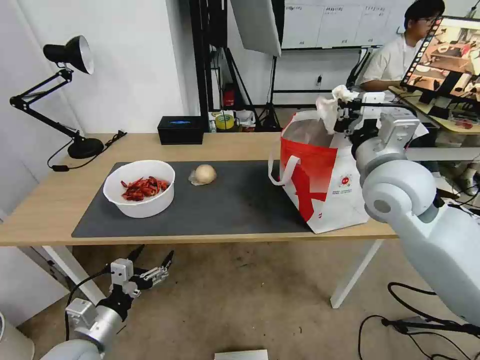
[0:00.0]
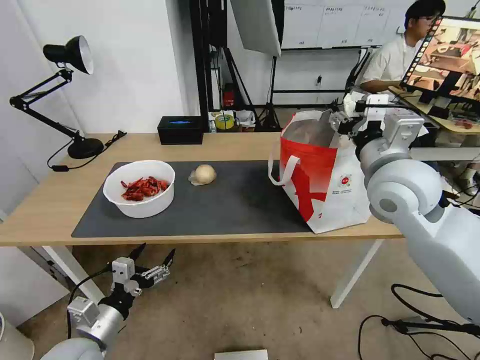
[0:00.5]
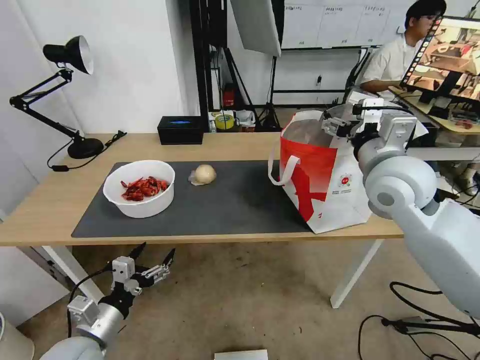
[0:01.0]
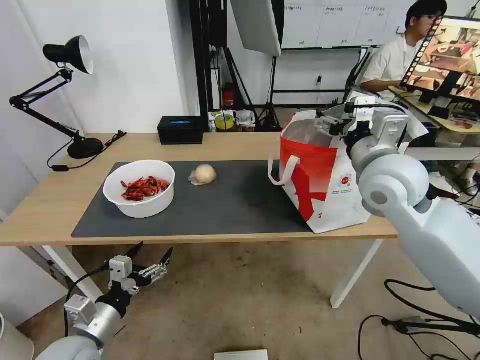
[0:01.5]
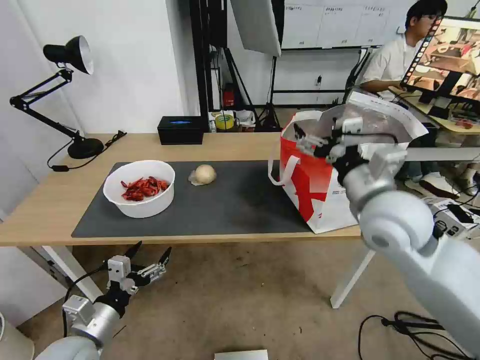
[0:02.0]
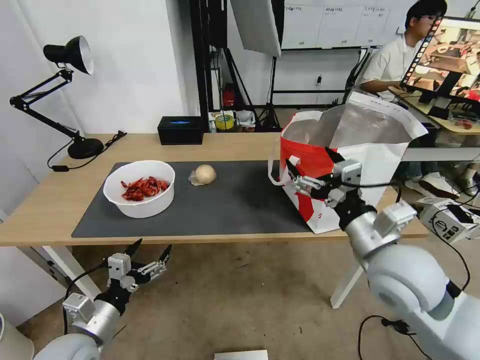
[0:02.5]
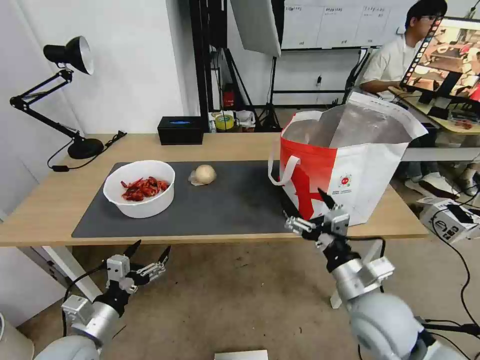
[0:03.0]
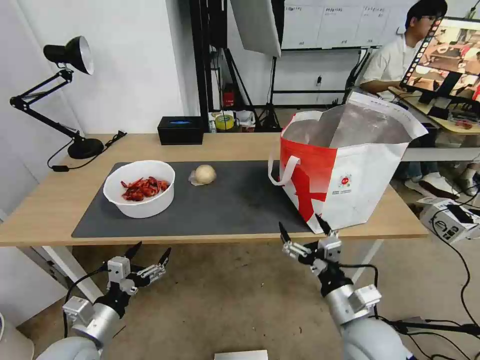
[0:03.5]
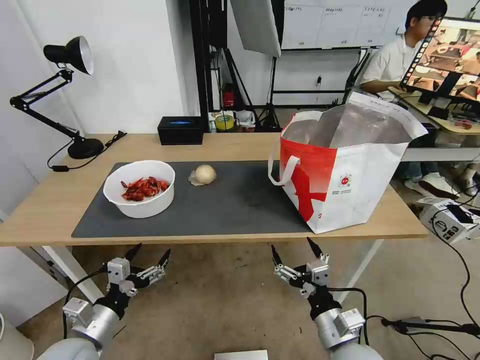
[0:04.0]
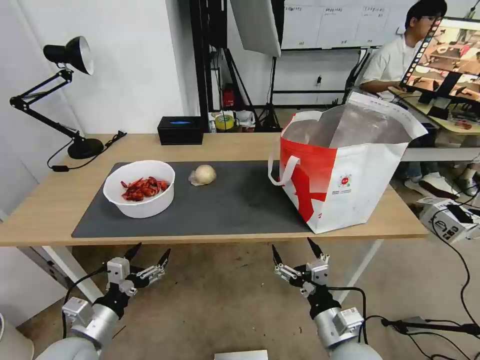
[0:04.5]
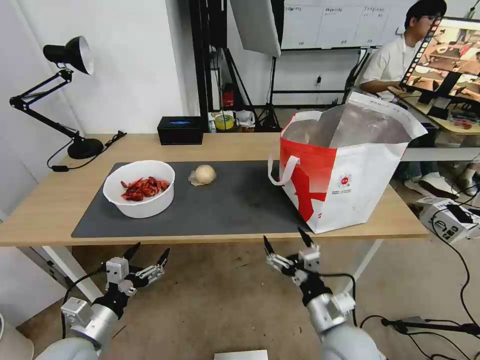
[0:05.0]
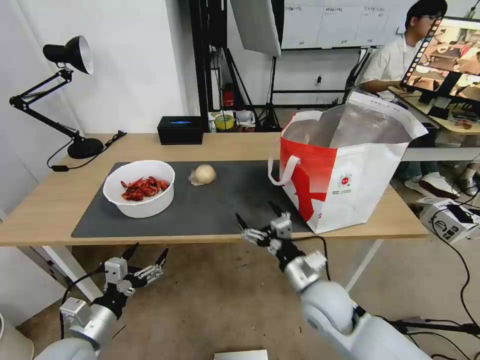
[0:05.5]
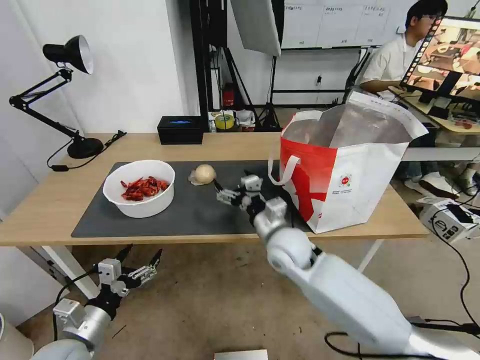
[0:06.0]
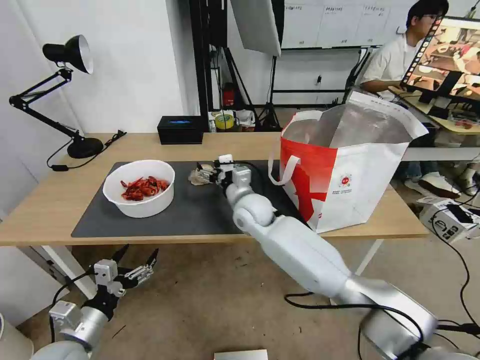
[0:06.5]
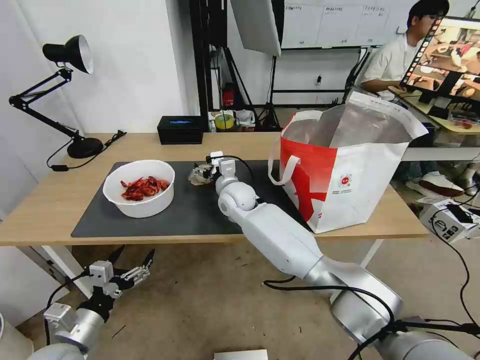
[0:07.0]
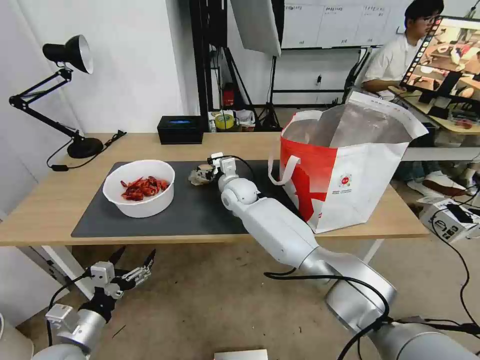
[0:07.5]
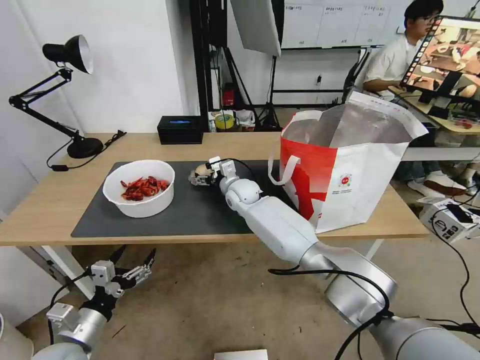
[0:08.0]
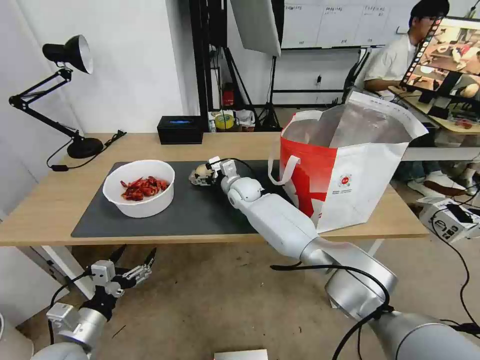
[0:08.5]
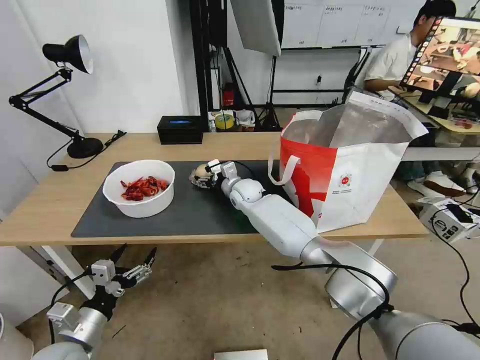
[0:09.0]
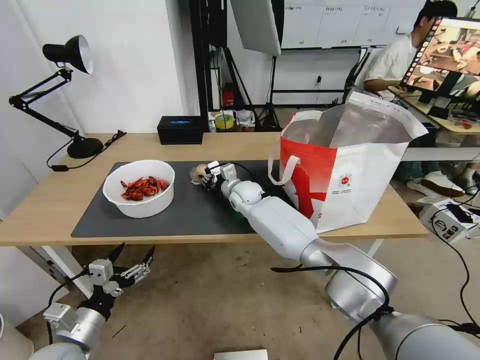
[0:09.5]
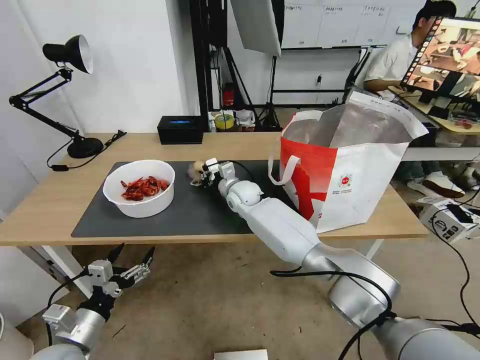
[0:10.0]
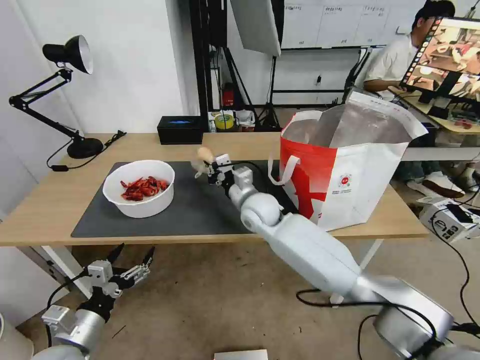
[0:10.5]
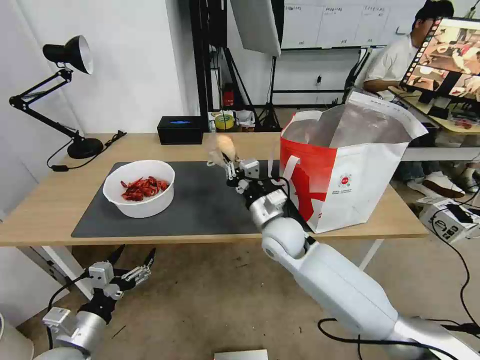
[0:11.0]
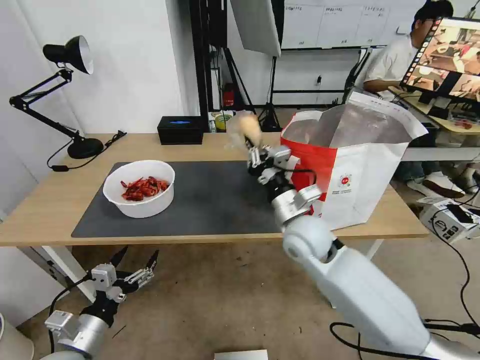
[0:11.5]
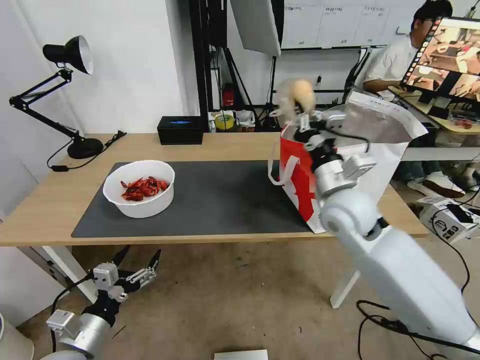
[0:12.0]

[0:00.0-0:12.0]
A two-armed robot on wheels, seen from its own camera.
Task of the whole recording: Pick up the trash from the table and place it into the takeout bag.
0:00.0 to 0:02.0: The right gripper changes place by approximately 5 cm, and opens.
0:02.0 to 0:04.0: The right gripper is displaced downward and backward by approximately 30 cm.
0:04.0 to 0:06.0: The right gripper travels forward and to the left by roughly 25 cm.
0:06.0 to 0:08.0: The right gripper is displaced forward and to the left by approximately 20 cm.
0:08.0 to 0:10.0: The right gripper closes its fingers.
0:10.0 to 0:12.0: The right gripper goes roughly 30 cm to the right, backward and upward.

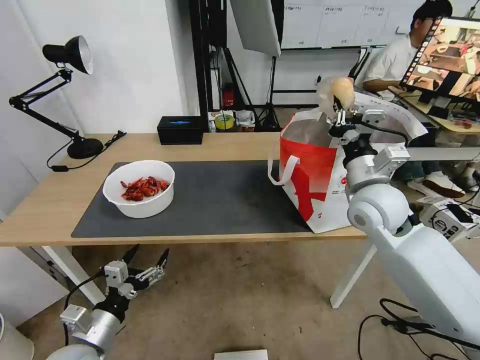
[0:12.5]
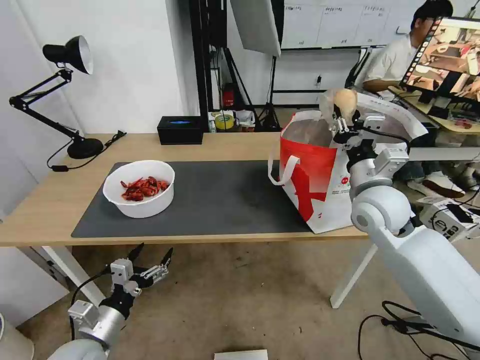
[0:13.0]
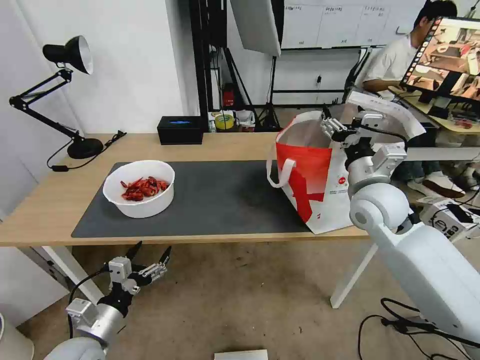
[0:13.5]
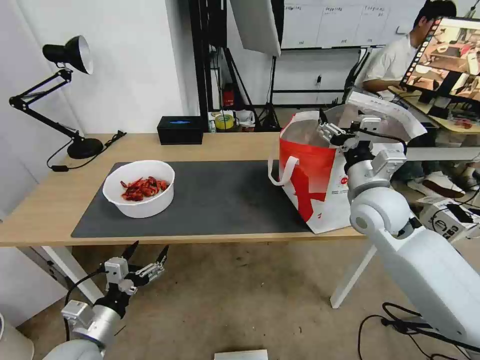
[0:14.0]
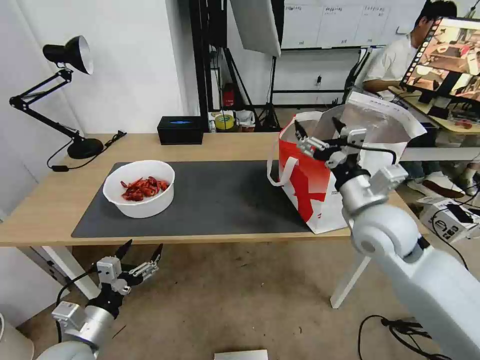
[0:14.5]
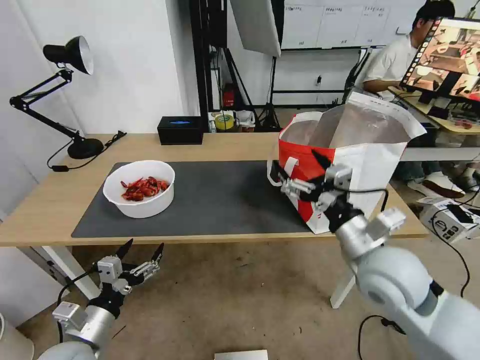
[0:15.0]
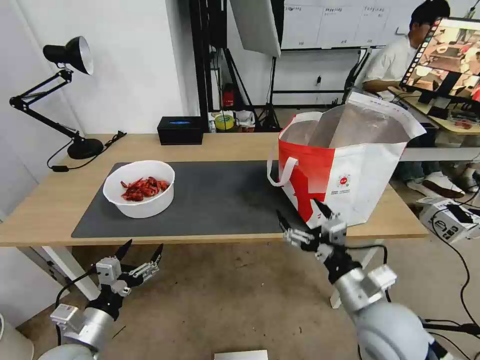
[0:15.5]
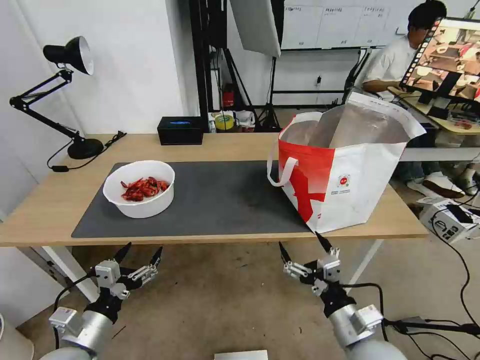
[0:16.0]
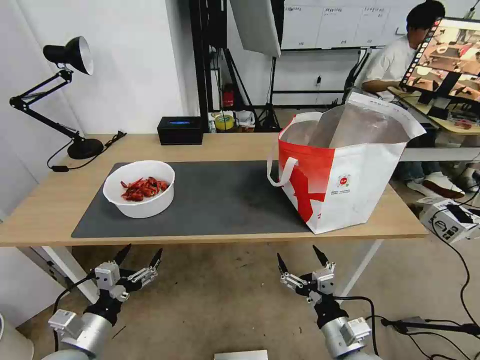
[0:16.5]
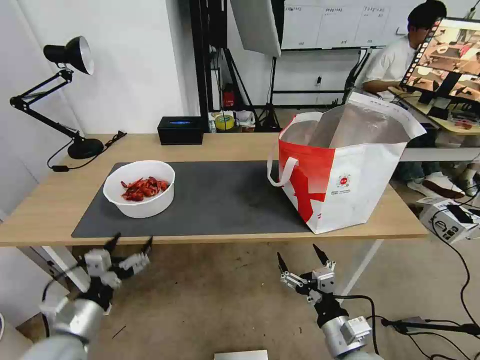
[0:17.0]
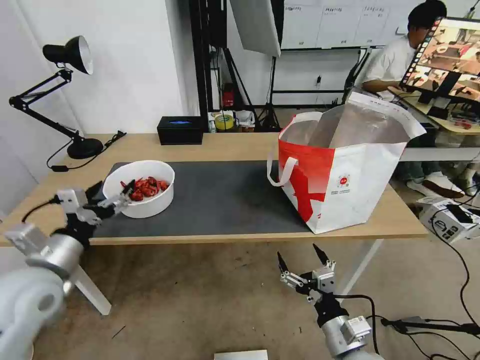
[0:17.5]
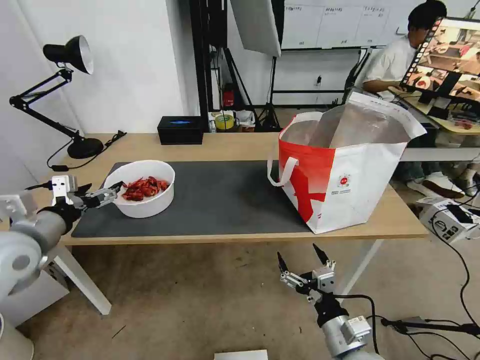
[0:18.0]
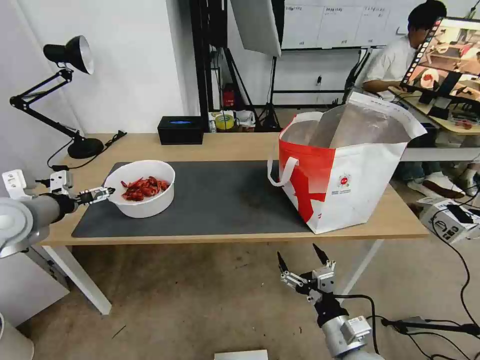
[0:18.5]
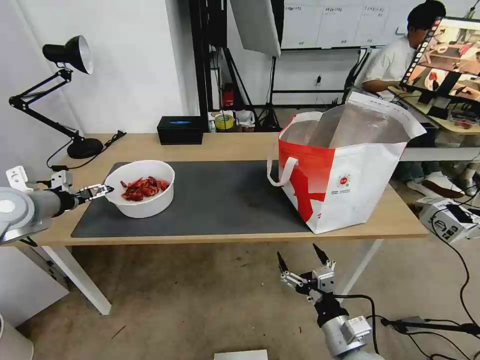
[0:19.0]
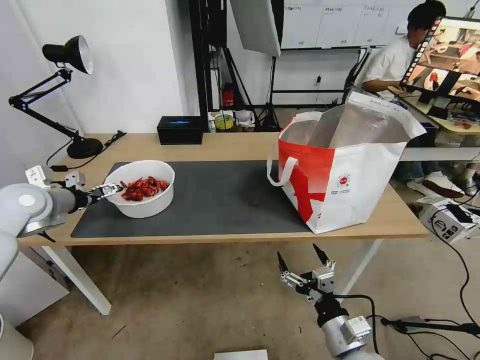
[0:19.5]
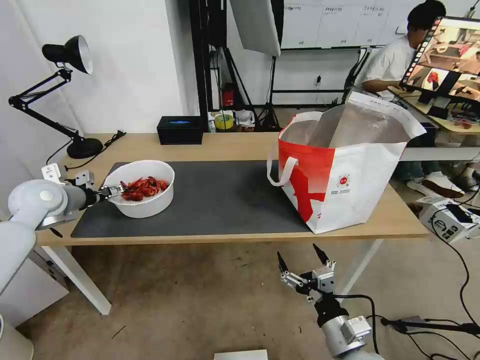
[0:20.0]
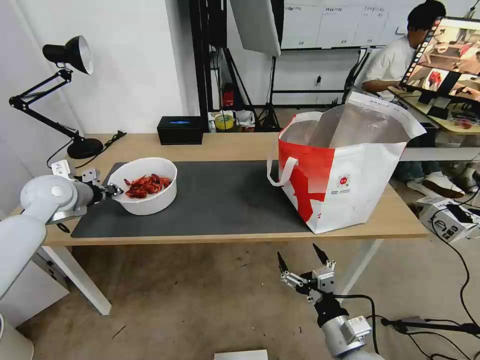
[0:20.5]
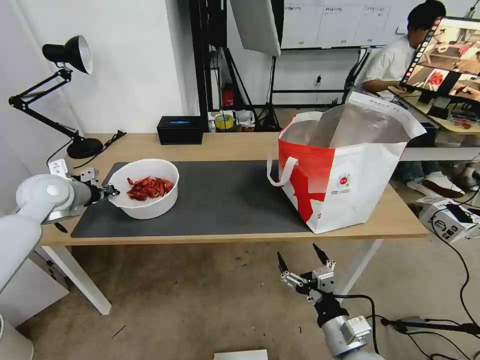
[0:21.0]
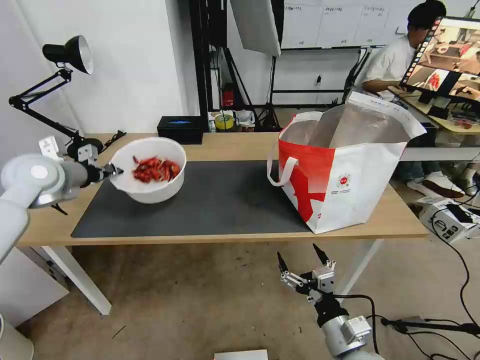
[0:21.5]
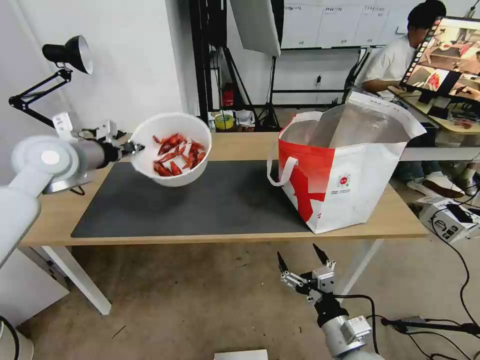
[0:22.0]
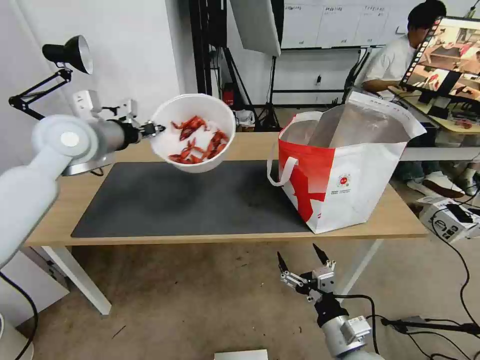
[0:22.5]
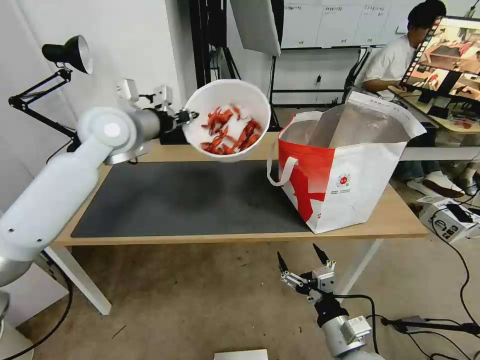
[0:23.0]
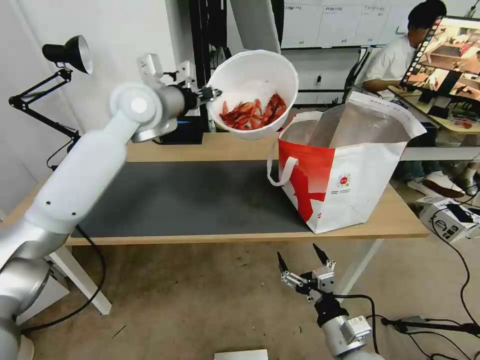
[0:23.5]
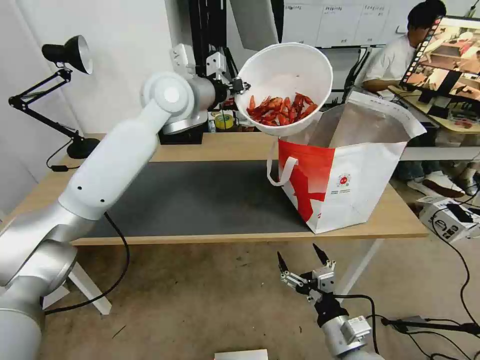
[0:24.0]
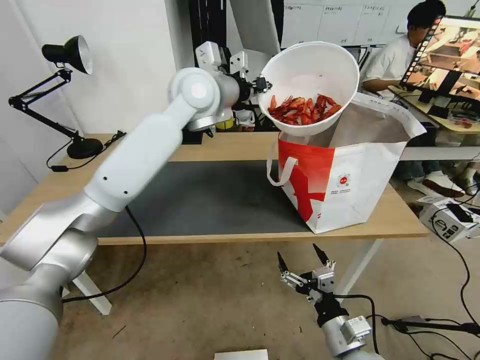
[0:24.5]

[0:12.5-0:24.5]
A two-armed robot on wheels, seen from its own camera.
Task of the whole recording: Pick up the trash from the table and place it into the takeout bag.
0:12.5 to 0:14.5: The right gripper goes about 5 cm backward, and opens up.
0:14.5 to 0:16.5: The right gripper shifts some 30 cm downward and backward.
0:16.5 to 0:18.5: The left gripper goes roughly 30 cm upward, forward and to the left.
0:18.5 to 0:20.5: The left gripper is displaced forward by about 10 cm, and closes up.
0:20.5 to 0:22.5: The left gripper moves upward and to the right, about 15 cm.
0:22.5 to 0:24.5: The left gripper travels to the right by approximately 25 cm.

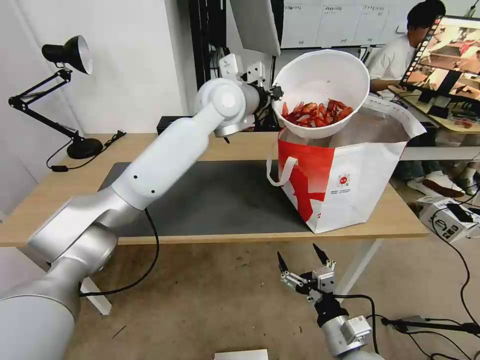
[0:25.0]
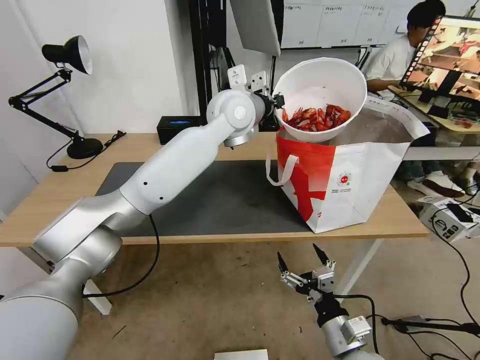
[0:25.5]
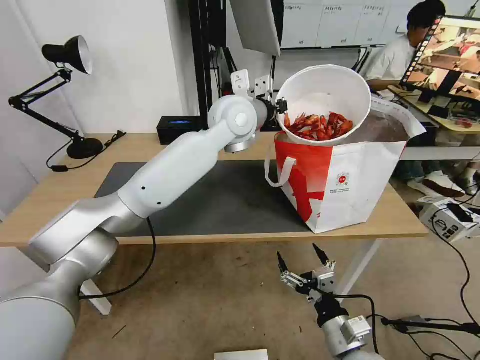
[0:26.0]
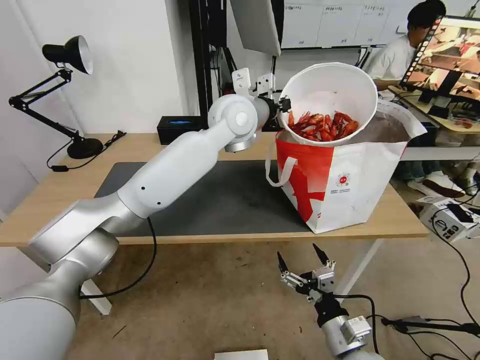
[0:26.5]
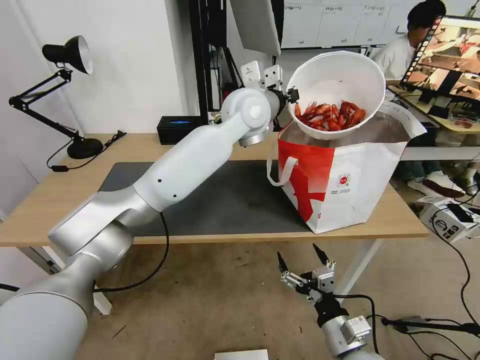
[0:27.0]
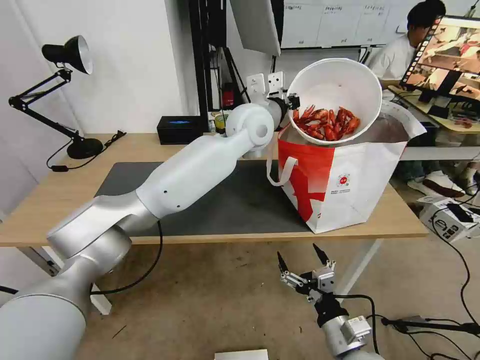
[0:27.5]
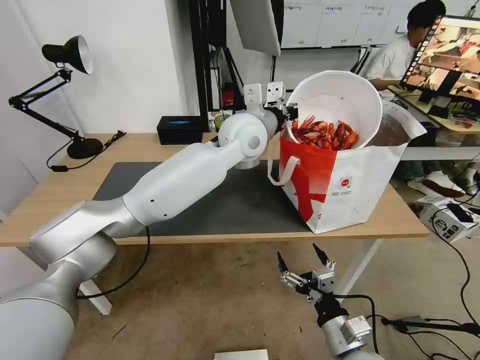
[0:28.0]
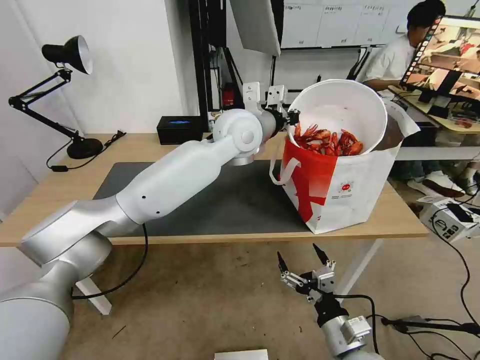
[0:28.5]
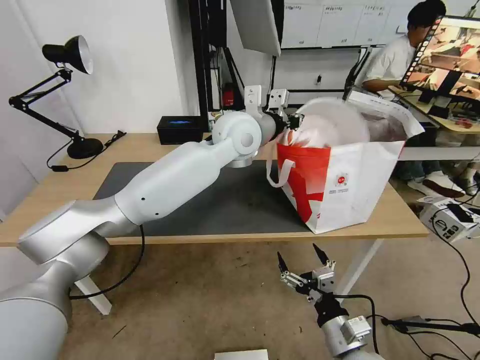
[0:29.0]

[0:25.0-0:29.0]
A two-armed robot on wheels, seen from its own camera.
Task of the whole recording: Pick up the trash from the table and place it into the takeout bag.
0:25.0 to 0:27.0: The grippers move only a little.
0:27.0 to 0:29.0: The grippers move only a little.
